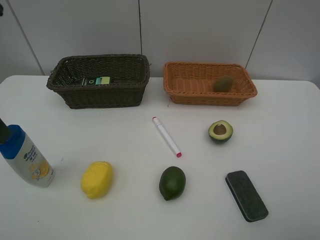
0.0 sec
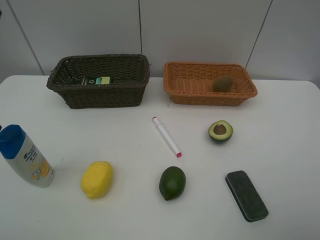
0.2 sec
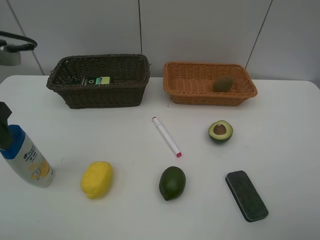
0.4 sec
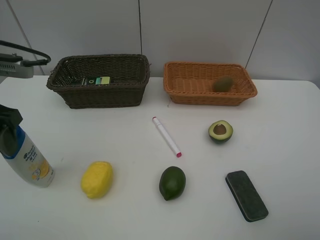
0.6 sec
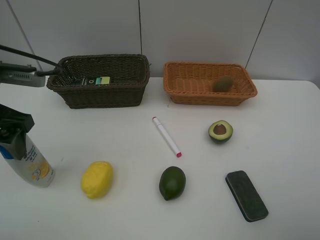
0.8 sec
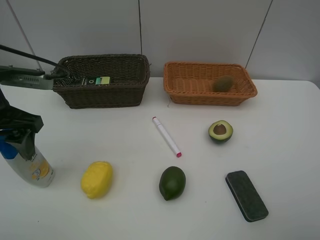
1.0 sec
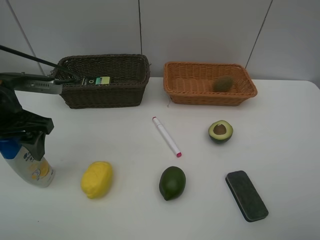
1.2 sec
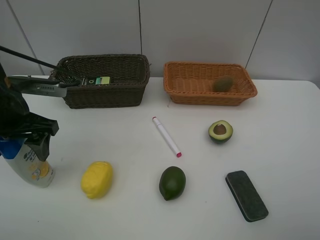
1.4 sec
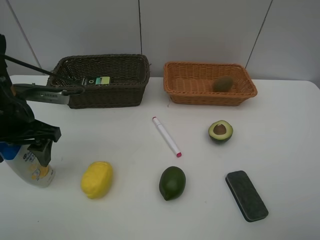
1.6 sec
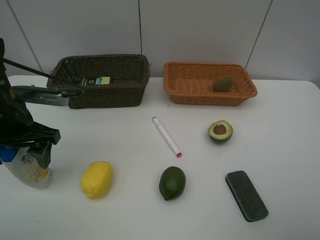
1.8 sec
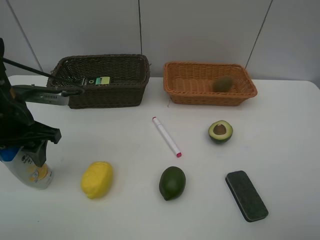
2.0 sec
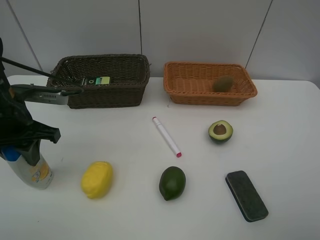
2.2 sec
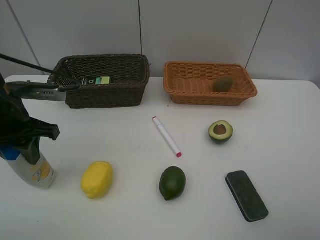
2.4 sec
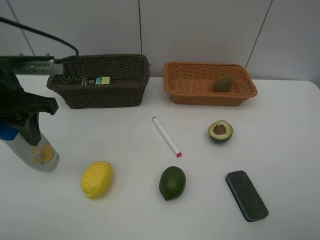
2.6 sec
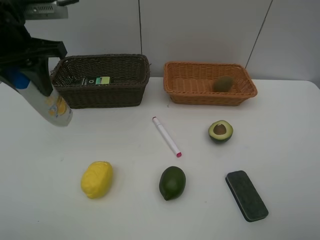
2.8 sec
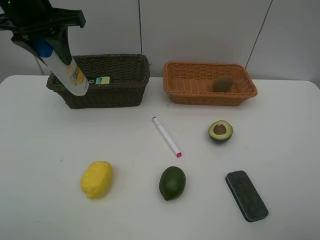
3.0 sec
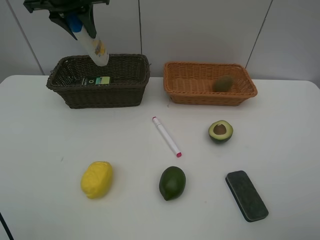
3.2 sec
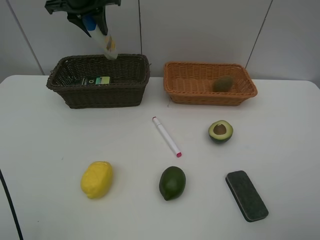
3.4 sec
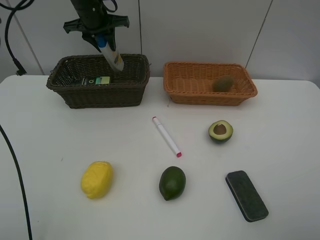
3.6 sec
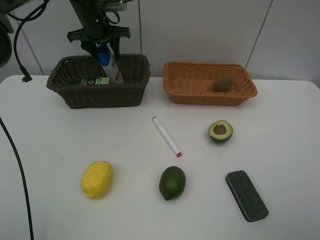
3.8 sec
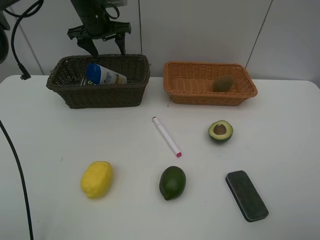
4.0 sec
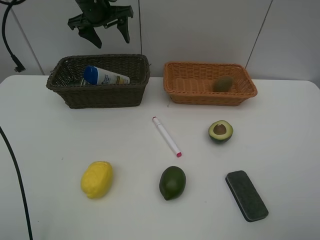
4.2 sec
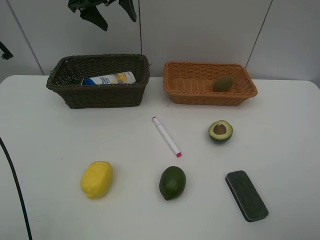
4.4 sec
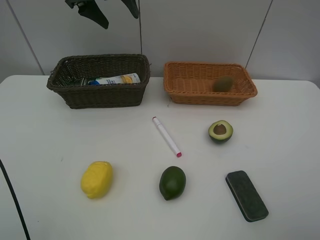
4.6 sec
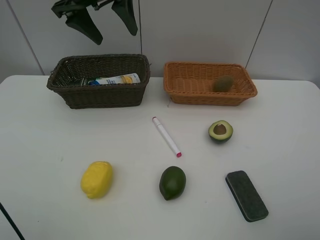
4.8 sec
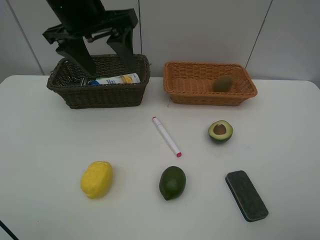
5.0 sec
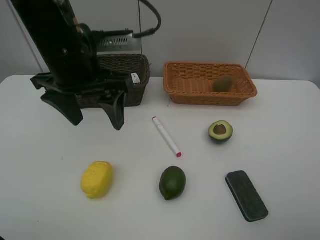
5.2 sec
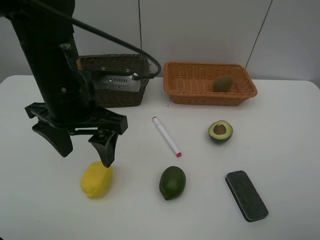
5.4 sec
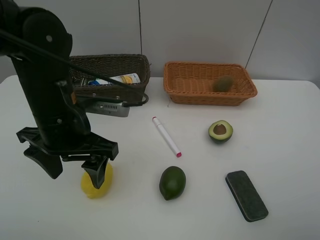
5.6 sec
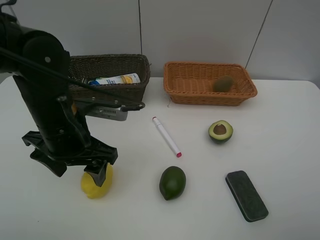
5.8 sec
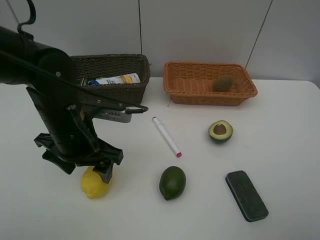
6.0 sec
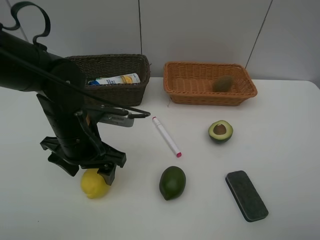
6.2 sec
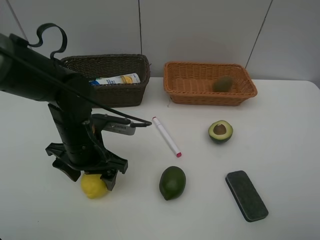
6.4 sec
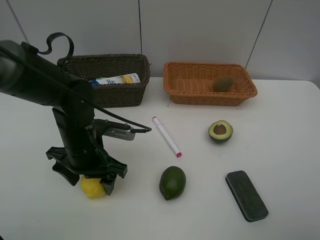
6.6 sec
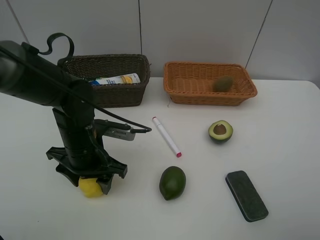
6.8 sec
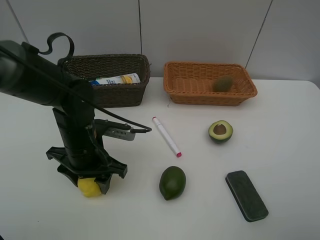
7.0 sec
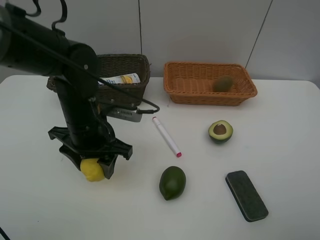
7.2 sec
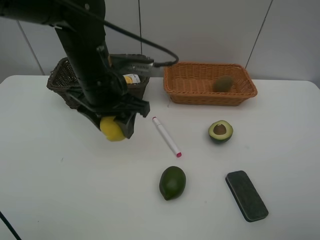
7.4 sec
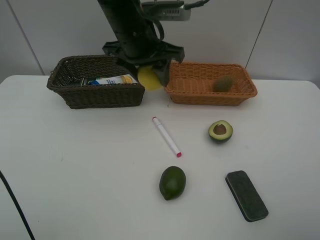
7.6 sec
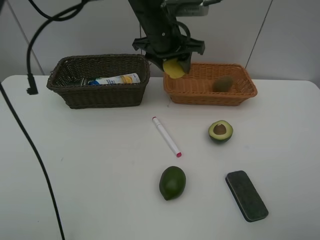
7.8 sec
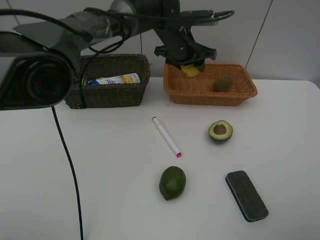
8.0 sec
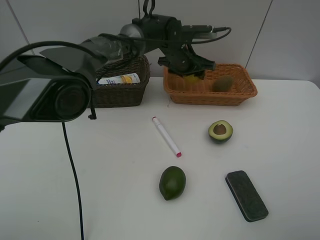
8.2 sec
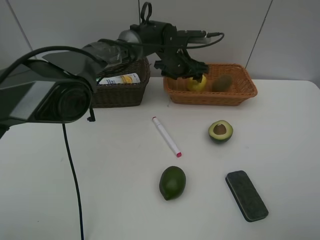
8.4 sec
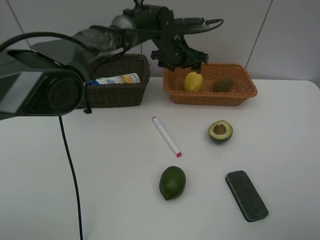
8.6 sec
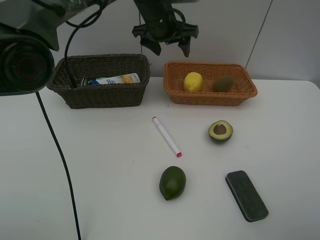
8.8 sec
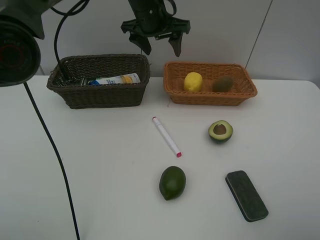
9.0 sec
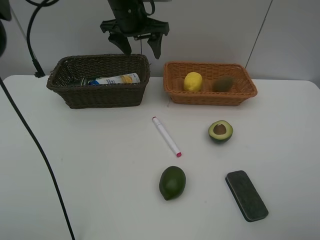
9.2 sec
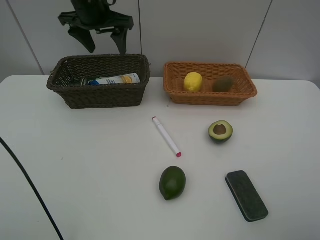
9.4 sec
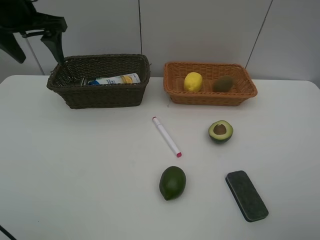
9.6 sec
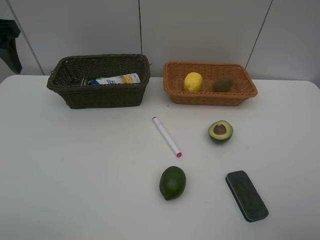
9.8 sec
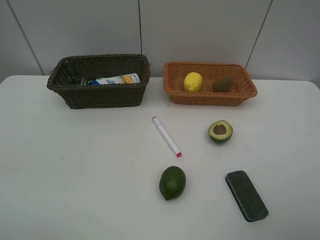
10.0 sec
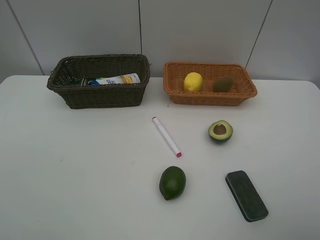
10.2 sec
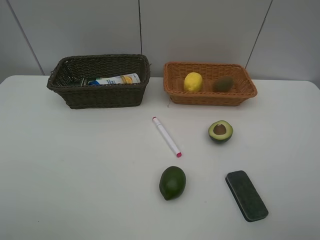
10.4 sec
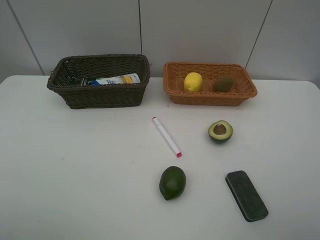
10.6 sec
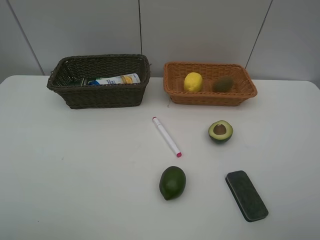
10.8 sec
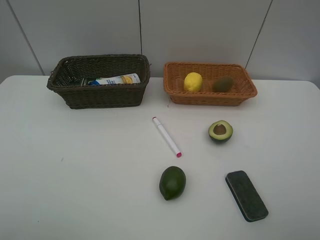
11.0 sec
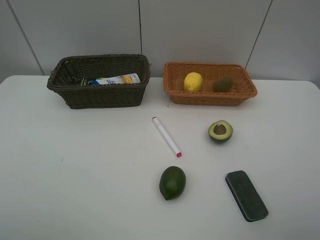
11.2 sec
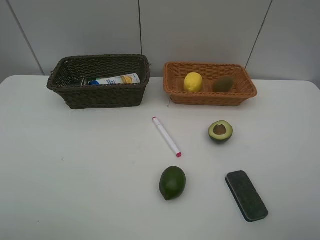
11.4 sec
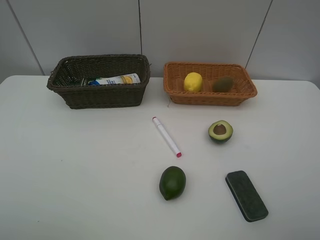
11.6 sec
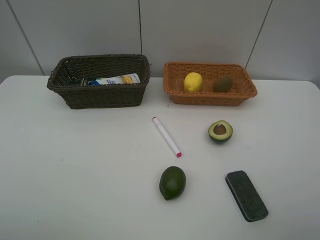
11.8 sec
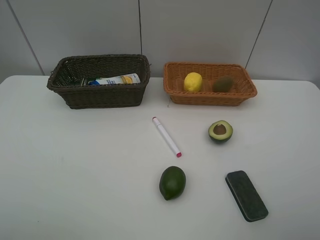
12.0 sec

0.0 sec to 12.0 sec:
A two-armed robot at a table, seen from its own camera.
Task of the whole recording: Place multiple objects separately in different baskets.
Step, 0.0 sec to 2.4 sec: Pick up the shampoo with left gripper.
Step, 2.6 sec to 4.0 sec: Place the shampoo in the dark basket with left gripper.
Step, 4.2 sec to 7.2 sec: Pick up the lemon with left gripper.
Step, 7.4 sec to 8.6 sec: Place the lemon in the light basket with left gripper.
0.0 sec to 1.6 sec: The left gripper is displaced downward and forward by approximately 15 cm.
1.6 sec to 3.0 sec: The left gripper shifts roughly 15 cm upward and forward, and closes its fingers.
3.0 sec to 4.4 sec: The left gripper is displaced forward and to the right by approximately 15 cm, and opens its fingers.
4.4 sec to 6.0 sec: The left gripper is displaced backward and downward by some 30 cm.
6.0 sec to 7.6 sec: The left gripper heads forward, upward and to the right, covering roughly 20 cm, and closes up.
7.6 sec to 9.0 sec: The left gripper shifts about 10 cm forward, and opens up.
9.0 sec to 10.4 sec: The left gripper travels backward and to the left by approximately 50 cm.

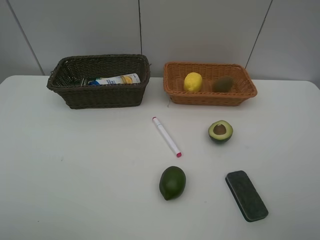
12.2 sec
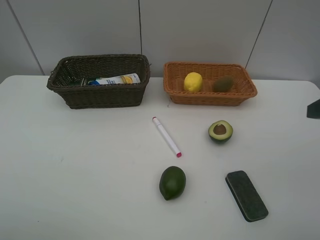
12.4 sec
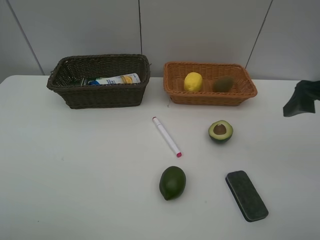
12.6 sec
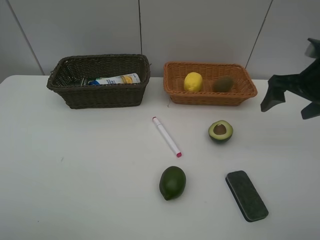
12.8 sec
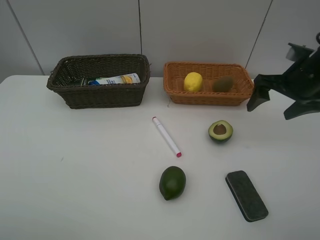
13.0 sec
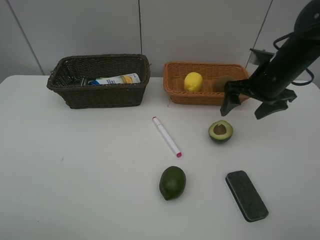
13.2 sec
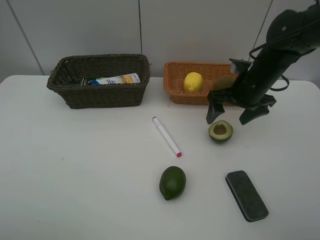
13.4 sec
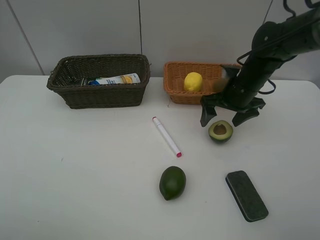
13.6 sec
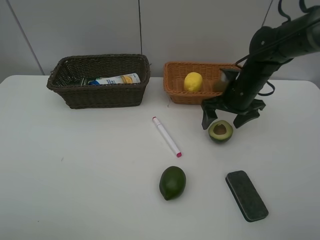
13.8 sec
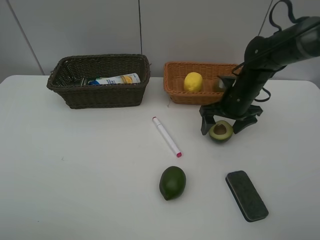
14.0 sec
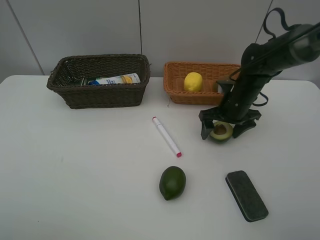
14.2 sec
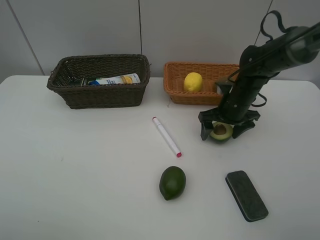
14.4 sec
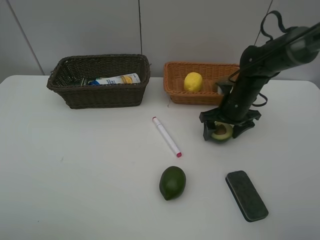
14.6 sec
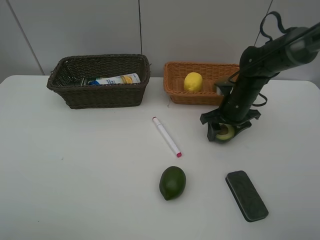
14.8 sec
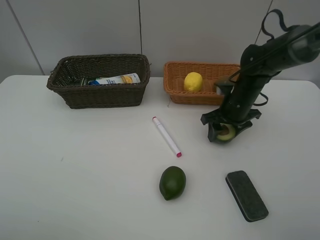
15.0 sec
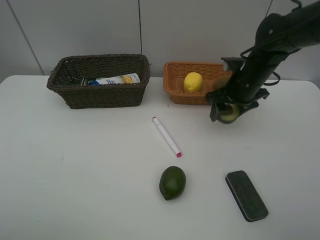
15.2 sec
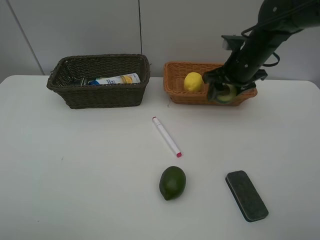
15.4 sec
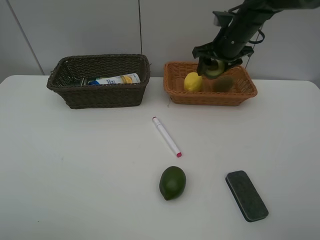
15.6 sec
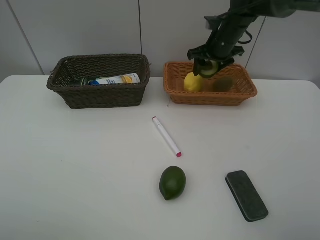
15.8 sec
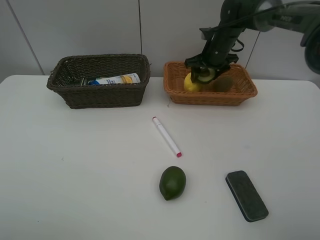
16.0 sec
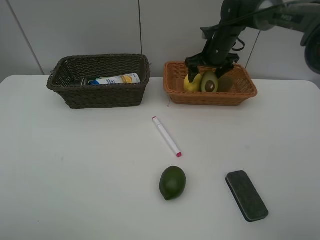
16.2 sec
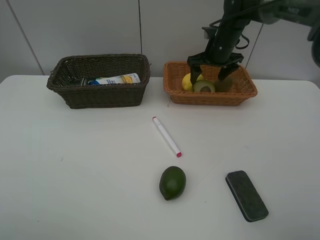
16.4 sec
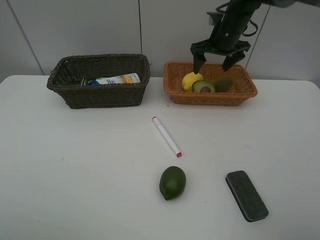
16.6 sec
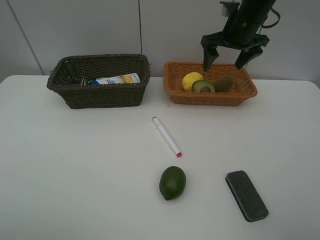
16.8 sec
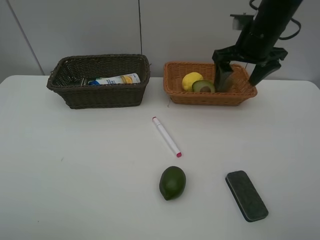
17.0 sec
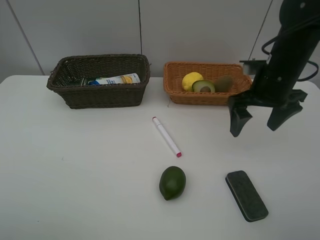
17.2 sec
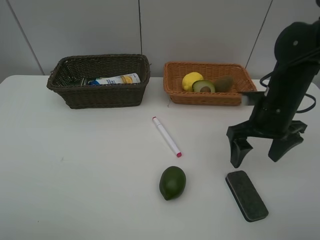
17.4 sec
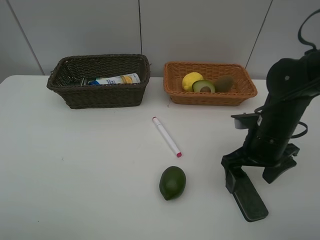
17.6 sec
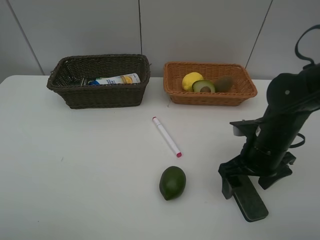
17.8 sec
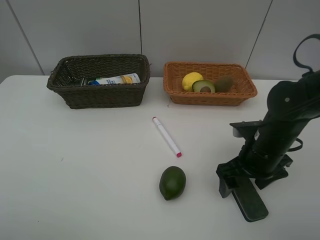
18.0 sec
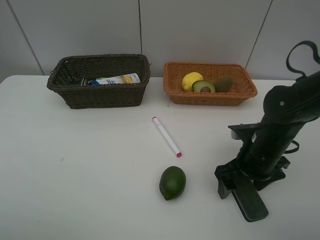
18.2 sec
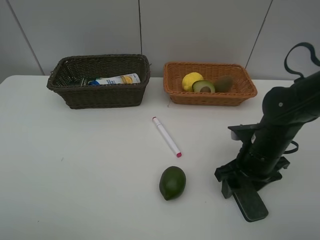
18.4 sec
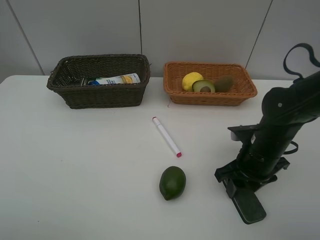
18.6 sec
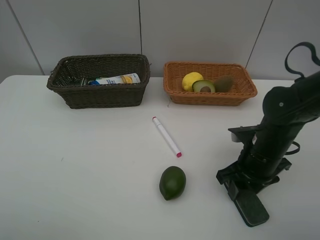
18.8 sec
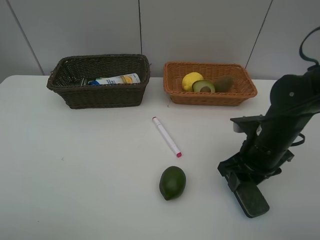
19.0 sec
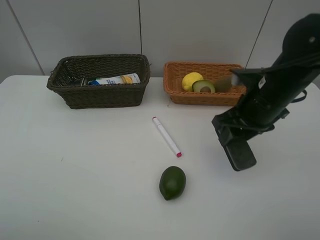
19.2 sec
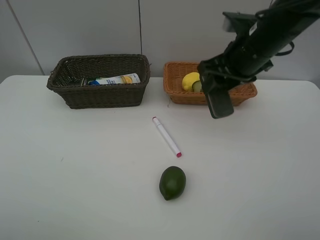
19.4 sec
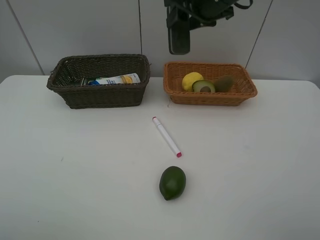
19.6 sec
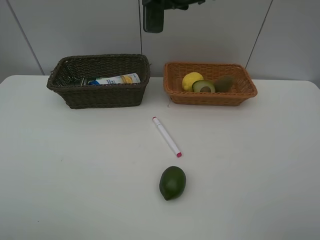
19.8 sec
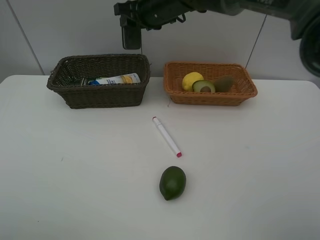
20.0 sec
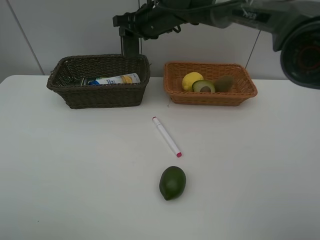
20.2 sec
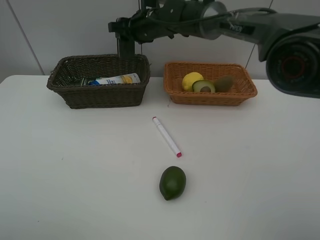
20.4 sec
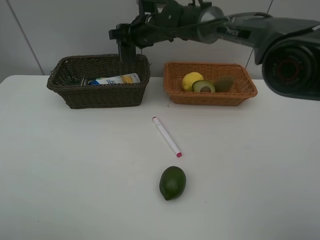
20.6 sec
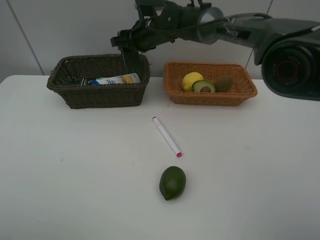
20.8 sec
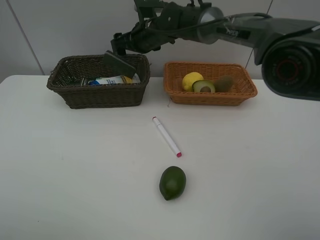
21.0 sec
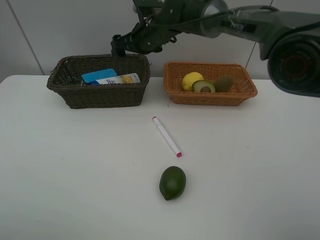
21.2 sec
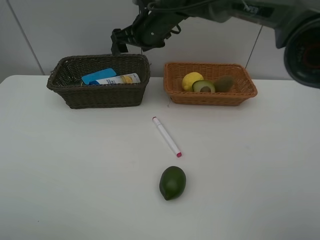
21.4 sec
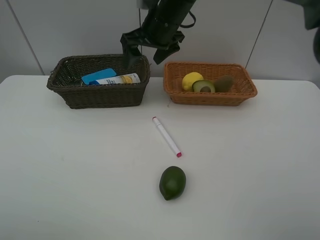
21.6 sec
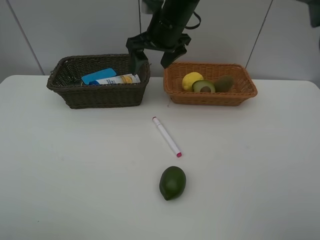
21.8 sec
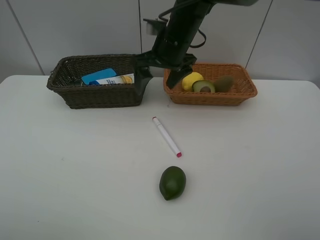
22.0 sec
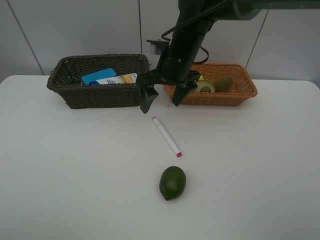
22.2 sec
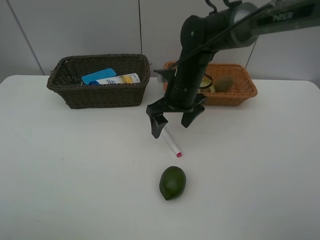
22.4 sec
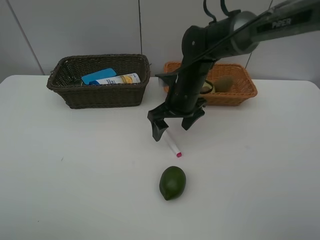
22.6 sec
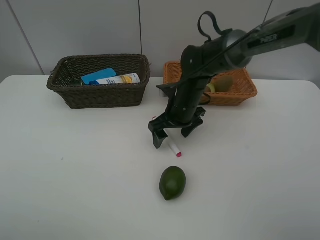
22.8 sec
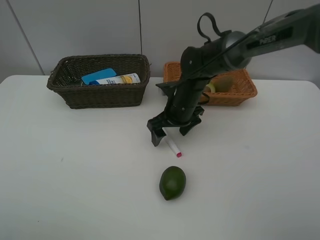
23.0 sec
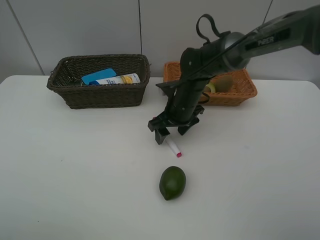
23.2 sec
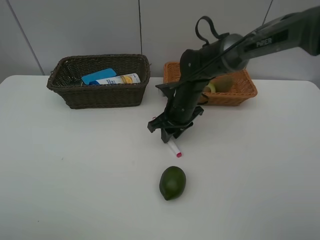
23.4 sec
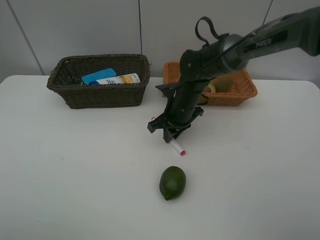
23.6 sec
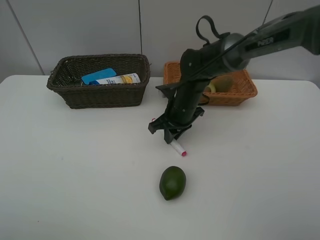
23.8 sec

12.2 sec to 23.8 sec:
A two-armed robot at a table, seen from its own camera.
Task of the whole recording: Place multiple objects separately in different baskets.
Step, 12.2 sec to 15.0 sec: Pick up the avocado with right gripper.
Step, 15.2 sec to 16.2 sec: Place the avocado in the light basket with right gripper.
Step, 16.4 sec to 19.0 sec: Pick up blackboard eraser with right gripper.
Step, 19.2 sec to 21.2 sec: Place the blackboard eraser in the dark basket with right gripper.
12.2 sec to 13.6 sec: The right gripper moves forward and downward, about 30 cm.
13.6 sec to 15.0 sec: The right gripper closes.
15.0 sec to 16.6 sec: The right gripper is displaced forward and upward by approximately 15 cm, and opens its fingers.
16.6 sec to 18.0 sec: The right gripper heads backward and downward, covering roughly 30 cm.
18.0 sec to 19.4 sec: The right gripper goes some 20 cm upward and forward, and closes up.
19.4 sec to 21.0 sec: The right gripper travels to the left and forward by roughly 25 cm, and opens its fingers.
21.0 sec to 22.4 sec: The right gripper shifts about 15 cm backward and to the right.
22.4 sec to 23.8 sec: The right gripper closes.
